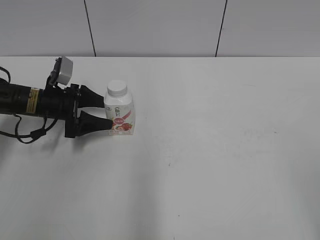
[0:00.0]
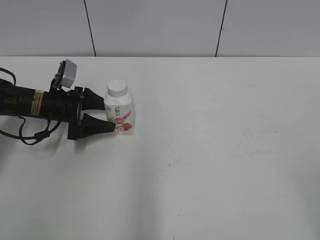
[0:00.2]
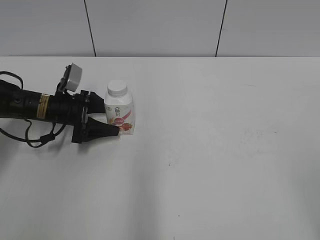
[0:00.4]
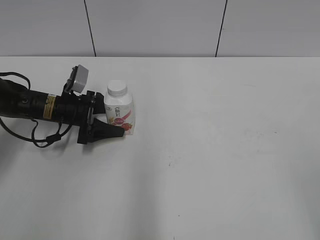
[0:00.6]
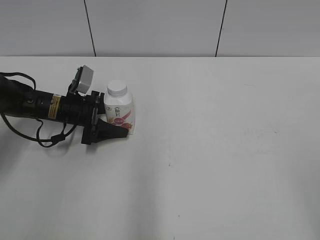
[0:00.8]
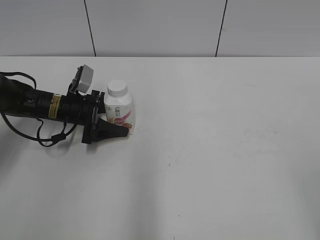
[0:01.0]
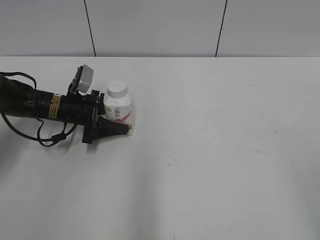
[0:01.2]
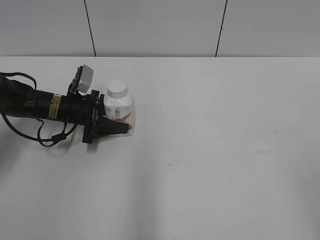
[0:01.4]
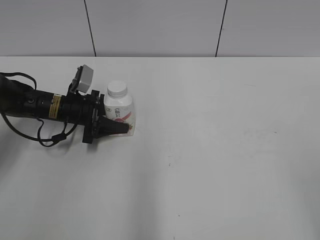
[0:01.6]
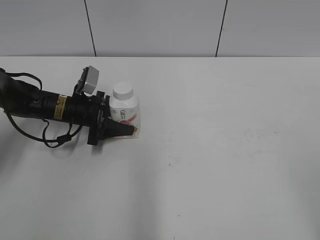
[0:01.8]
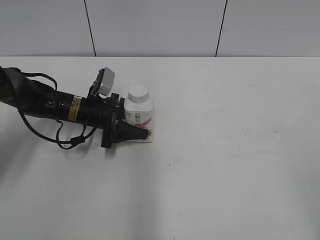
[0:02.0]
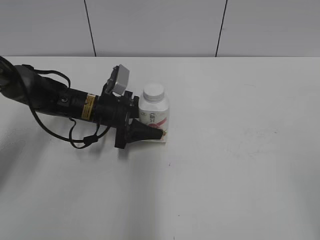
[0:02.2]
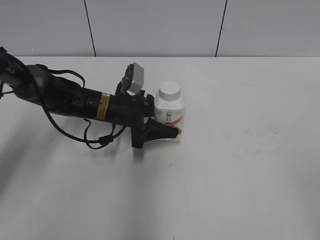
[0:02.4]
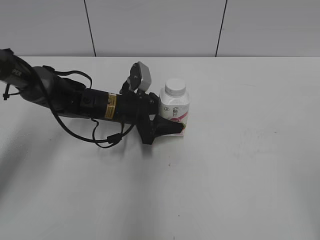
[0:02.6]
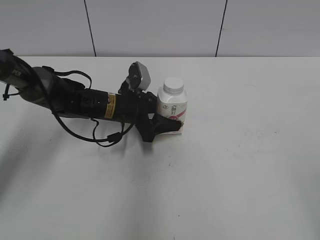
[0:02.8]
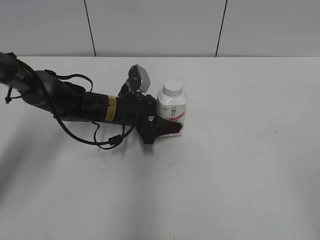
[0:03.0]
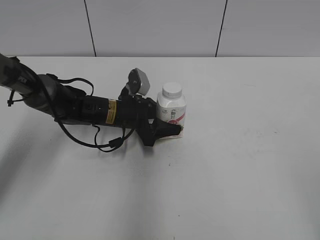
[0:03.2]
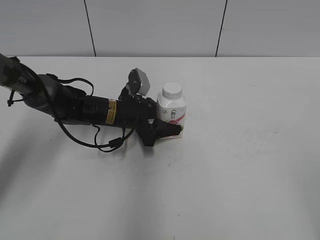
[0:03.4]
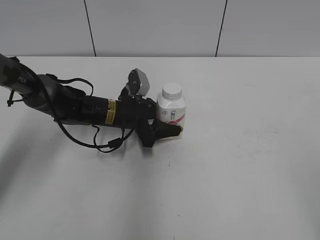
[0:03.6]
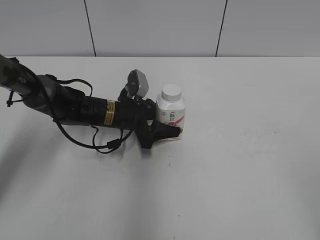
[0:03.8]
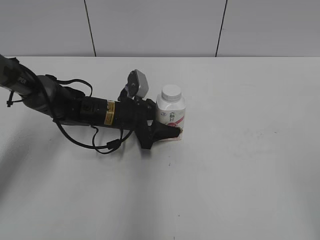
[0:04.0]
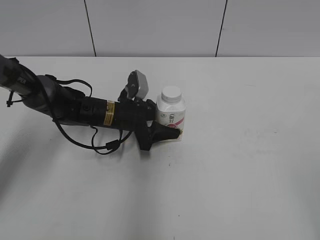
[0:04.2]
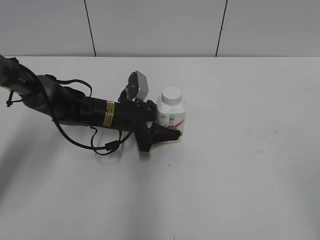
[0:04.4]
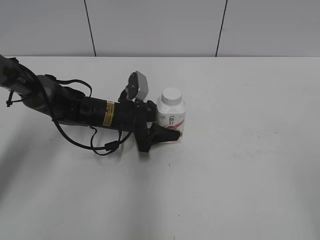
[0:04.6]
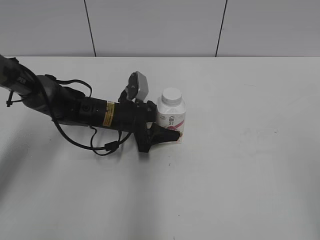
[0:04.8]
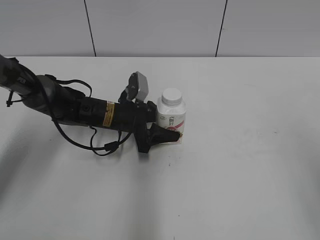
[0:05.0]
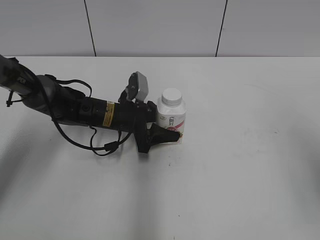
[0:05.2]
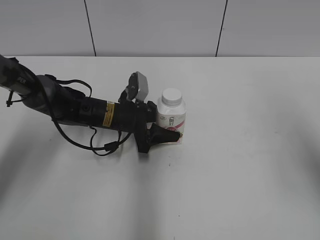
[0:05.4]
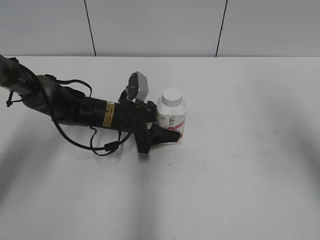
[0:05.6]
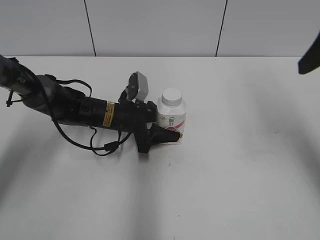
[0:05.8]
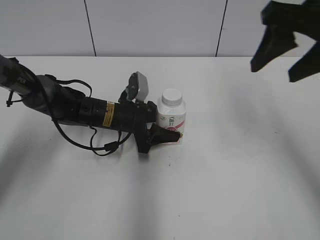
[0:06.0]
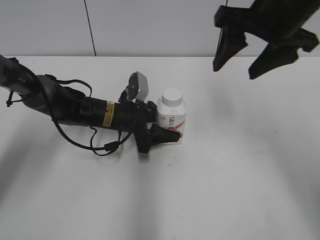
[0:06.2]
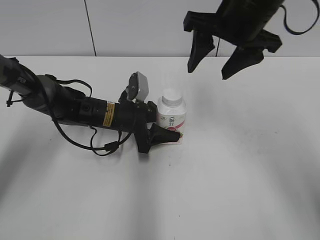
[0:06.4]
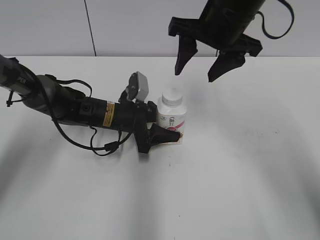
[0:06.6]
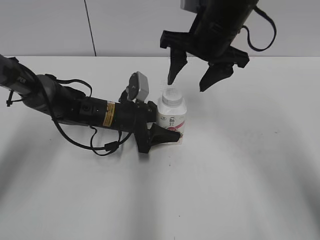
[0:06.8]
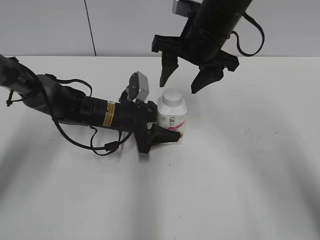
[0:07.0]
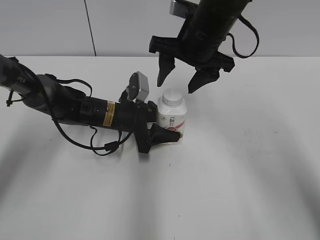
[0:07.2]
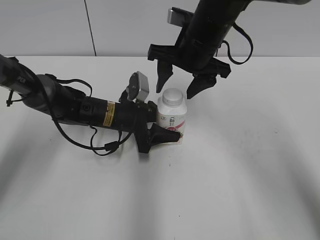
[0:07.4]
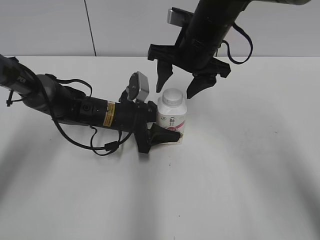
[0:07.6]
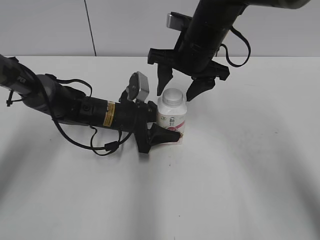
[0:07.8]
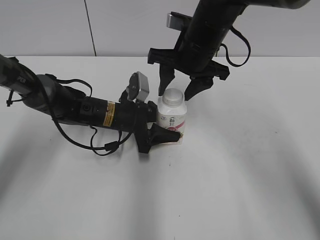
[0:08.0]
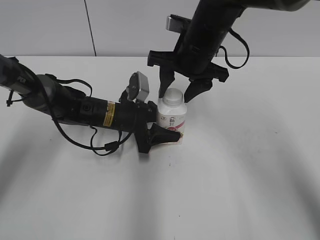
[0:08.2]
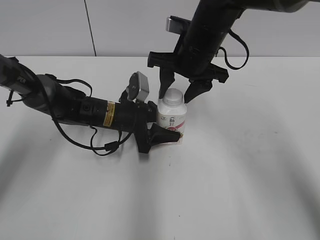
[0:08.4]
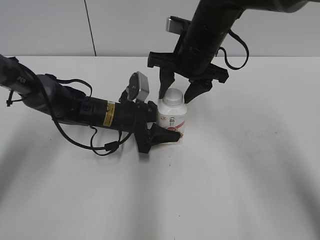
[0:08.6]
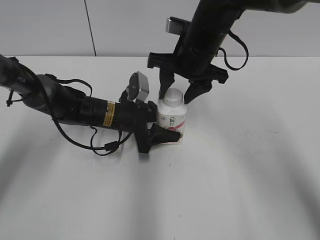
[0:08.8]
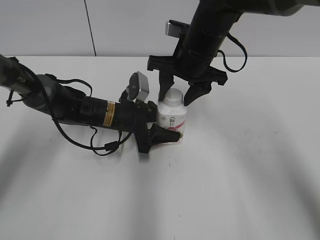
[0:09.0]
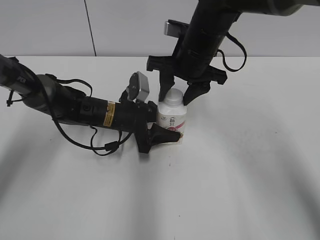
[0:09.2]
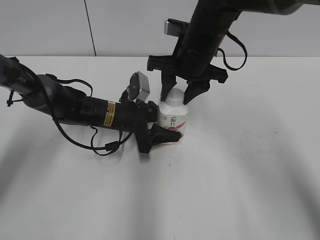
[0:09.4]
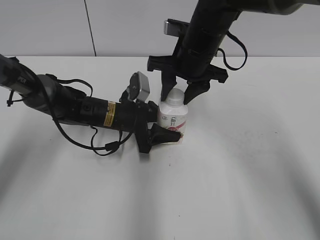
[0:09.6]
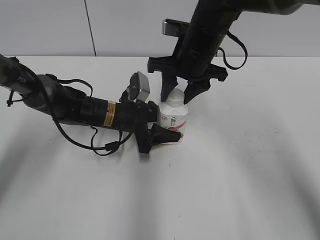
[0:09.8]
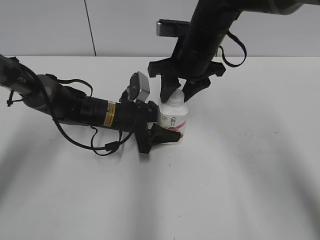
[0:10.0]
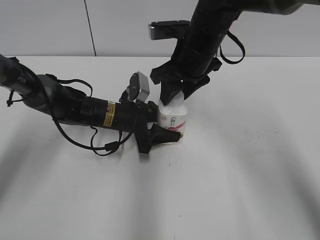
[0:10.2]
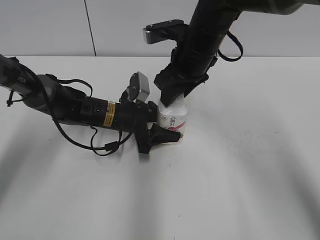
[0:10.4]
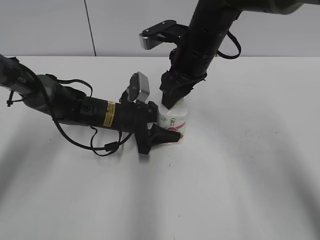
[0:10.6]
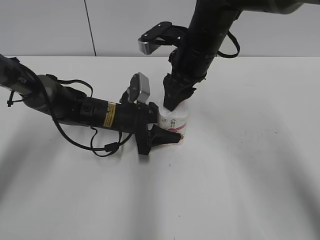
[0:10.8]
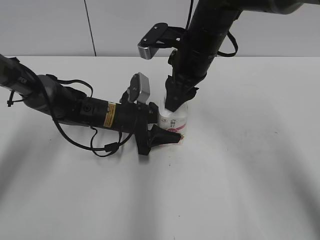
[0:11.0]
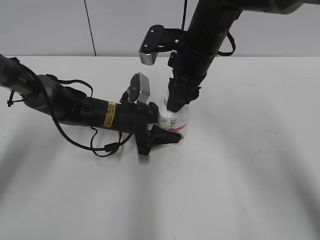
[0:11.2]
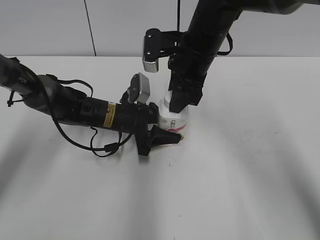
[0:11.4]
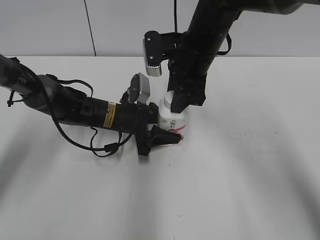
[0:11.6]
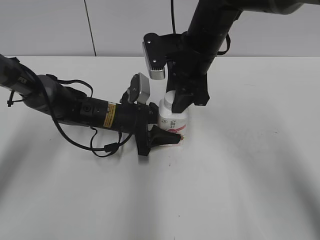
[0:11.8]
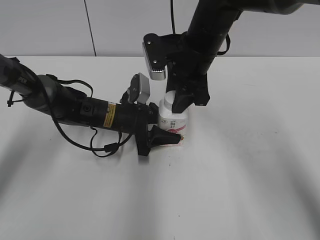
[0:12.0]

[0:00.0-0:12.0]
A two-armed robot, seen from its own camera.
Step, 0:01.8 to 0:04.4: Lift the bottle and move it to the center of the table with the left gripper.
0:00.0 to 0:01.6: The left gripper closes its fingers.
0:01.6 to 0:03.0: The left gripper travels to the right by some 10 cm.
0:03.0 to 0:04.4: Neither gripper changes place.
0:04.4 to 0:06.0: The right gripper goes approximately 30 cm forward.
0:06.0 to 0:07.6: The right gripper goes about 20 cm to the left, downward and forward.
0:07.6 to 0:09.0: The right gripper closes up.
0:09.0 to 0:10.4: The right gripper closes up.

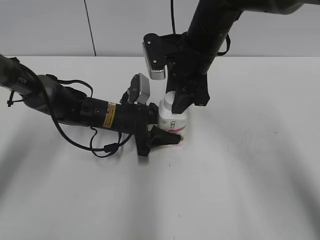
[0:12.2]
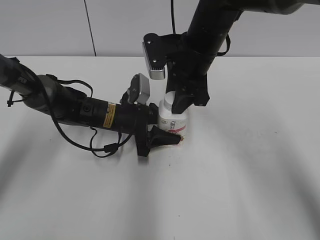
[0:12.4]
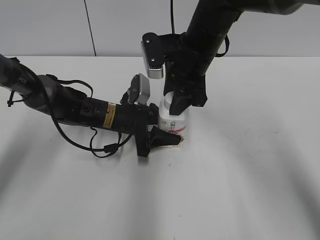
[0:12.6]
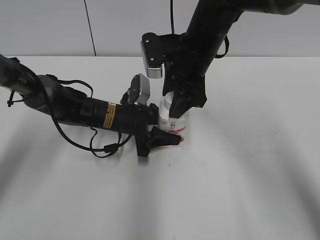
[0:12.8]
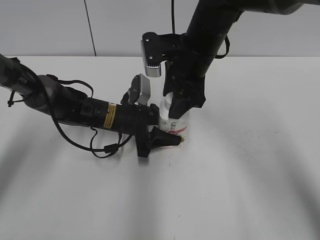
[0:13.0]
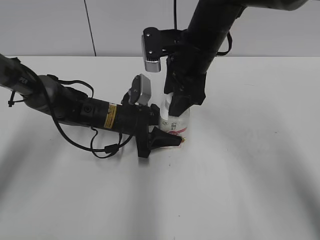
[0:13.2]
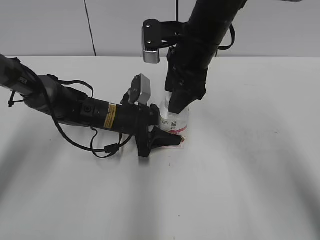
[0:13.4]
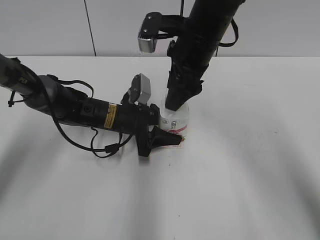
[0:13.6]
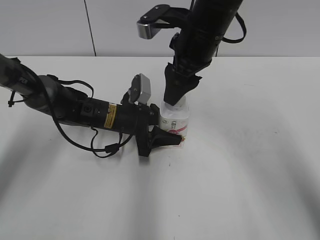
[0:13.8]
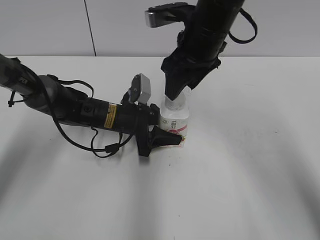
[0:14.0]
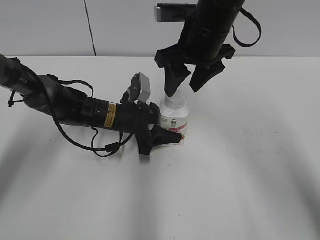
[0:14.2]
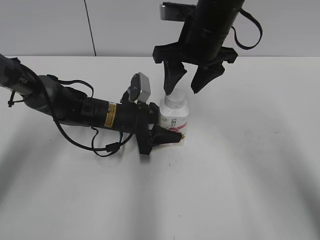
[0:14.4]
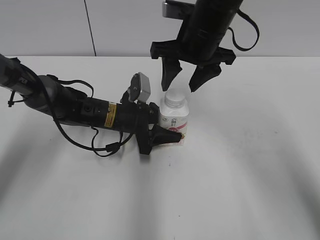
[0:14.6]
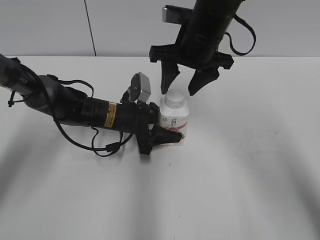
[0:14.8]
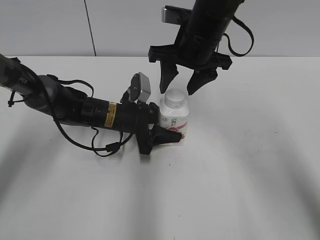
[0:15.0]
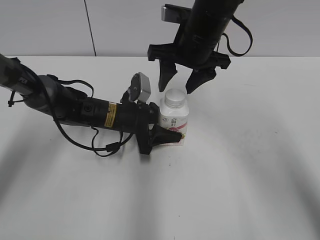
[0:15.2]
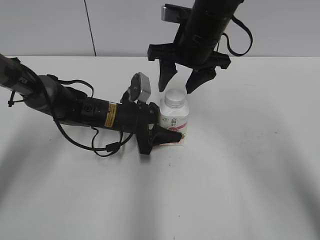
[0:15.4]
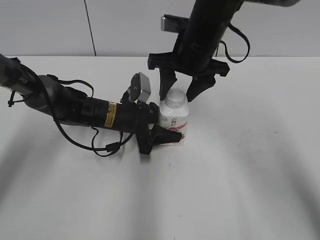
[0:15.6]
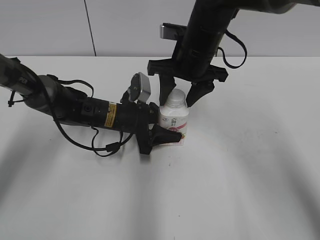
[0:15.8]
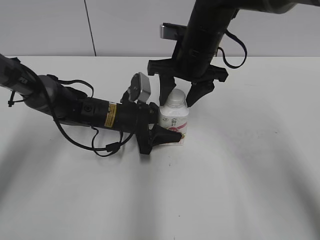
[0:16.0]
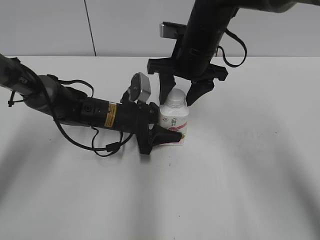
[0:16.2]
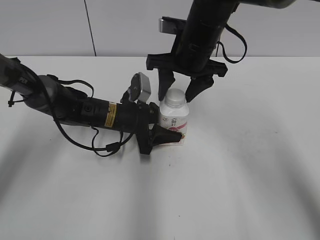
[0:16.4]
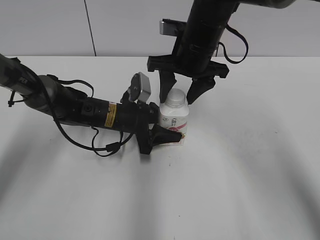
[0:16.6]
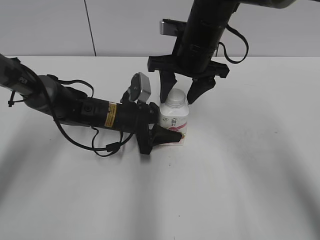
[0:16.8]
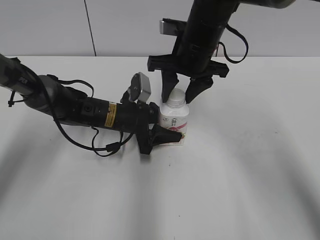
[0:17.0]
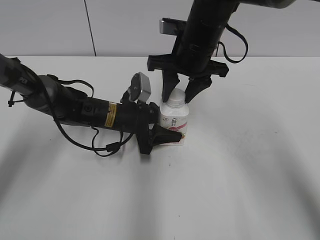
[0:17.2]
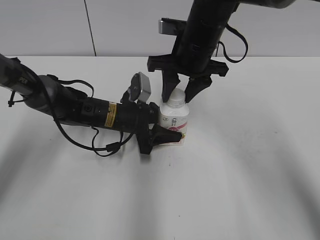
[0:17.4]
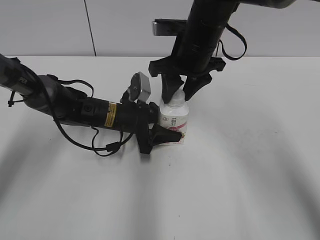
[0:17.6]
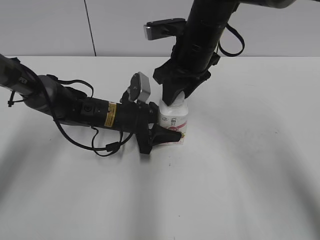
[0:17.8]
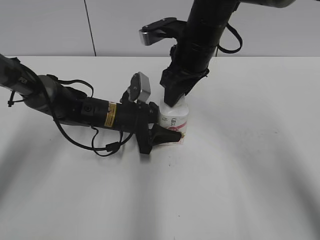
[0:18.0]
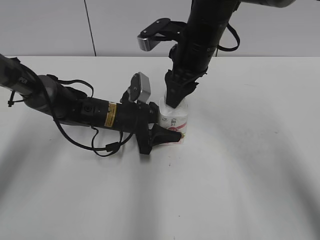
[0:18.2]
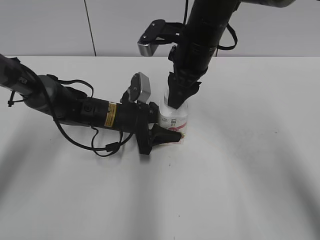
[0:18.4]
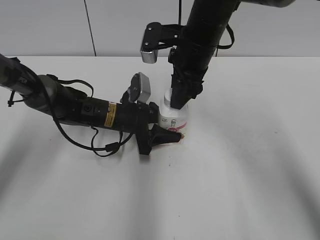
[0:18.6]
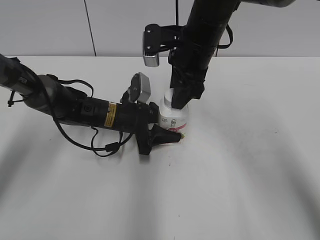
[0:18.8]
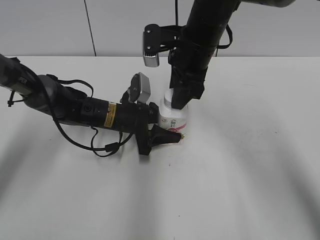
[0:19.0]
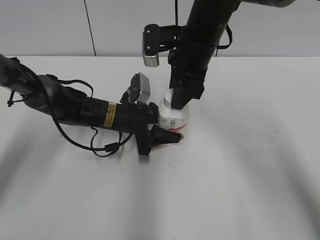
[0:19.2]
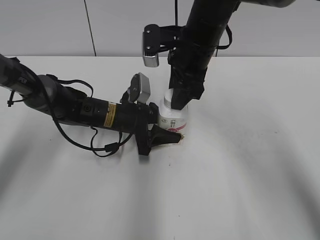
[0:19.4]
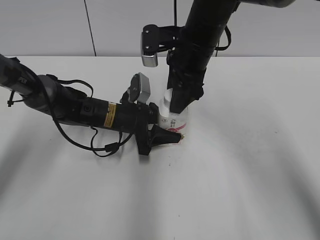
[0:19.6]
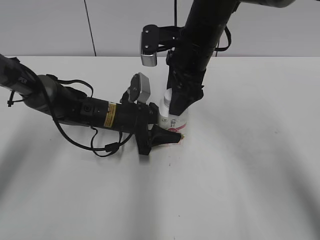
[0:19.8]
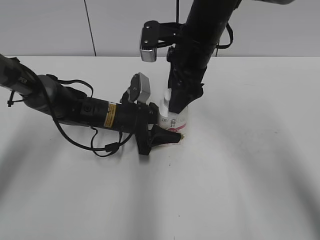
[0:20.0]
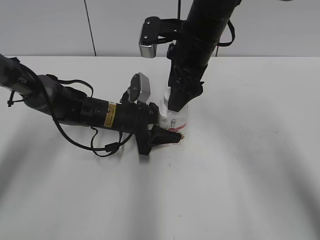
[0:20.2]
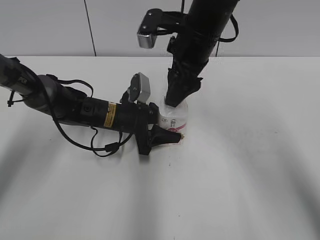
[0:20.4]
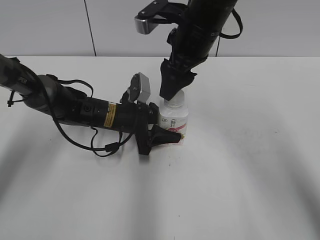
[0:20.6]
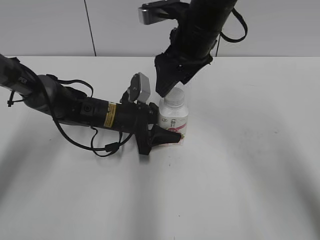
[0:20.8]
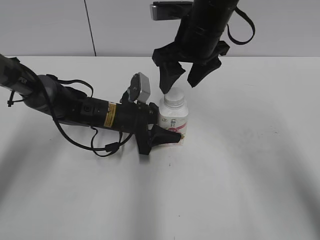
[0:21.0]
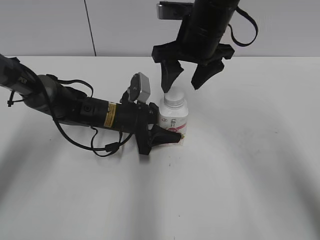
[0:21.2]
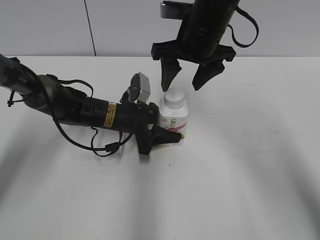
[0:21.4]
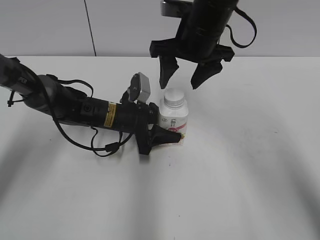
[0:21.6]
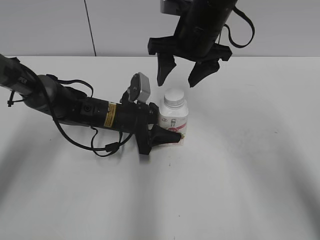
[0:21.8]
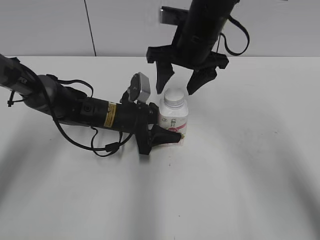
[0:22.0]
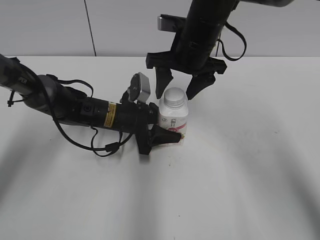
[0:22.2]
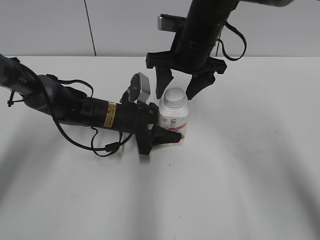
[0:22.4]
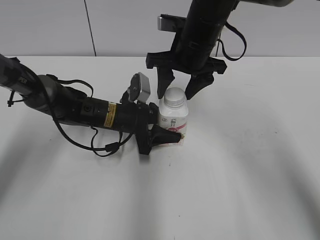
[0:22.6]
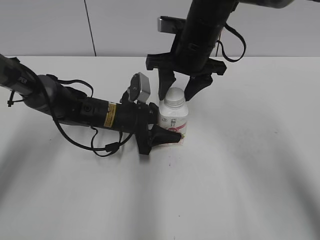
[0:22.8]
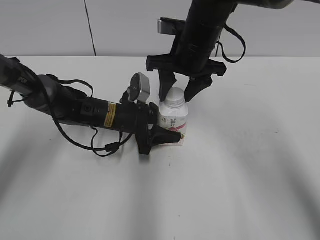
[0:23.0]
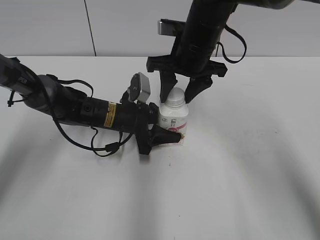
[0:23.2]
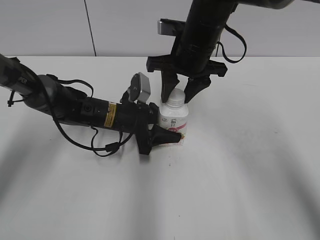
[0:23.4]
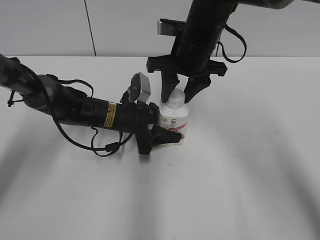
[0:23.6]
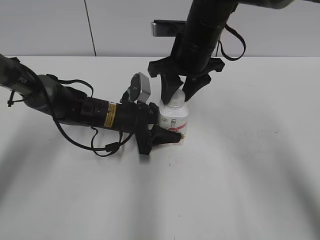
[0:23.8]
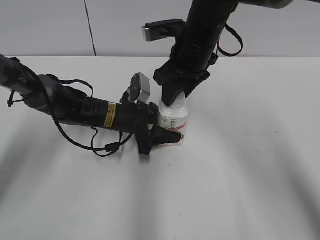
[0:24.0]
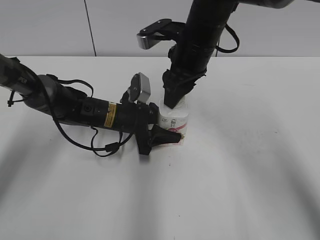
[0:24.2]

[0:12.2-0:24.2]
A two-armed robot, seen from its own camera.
0:12.2 to 0:13.8: The right gripper opens.
0:15.2 to 0:16.6: The grippers make only small movements.
0:16.6 to 0:18.2: The right gripper closes up.
0:18.2 to 0:19.8: The right gripper opens.
0:21.2 to 0:22.6: The grippers make only small movements.
0:22.6 to 0:24.2: The right gripper closes.
